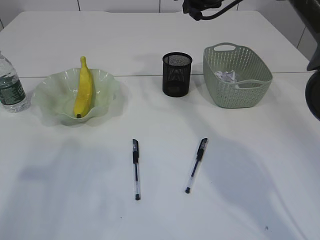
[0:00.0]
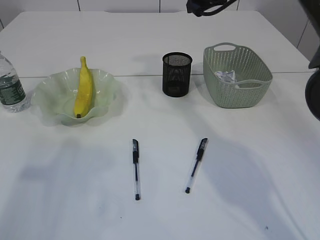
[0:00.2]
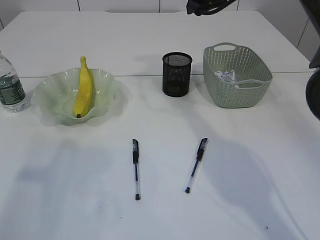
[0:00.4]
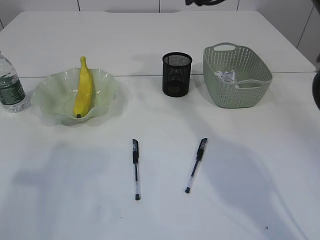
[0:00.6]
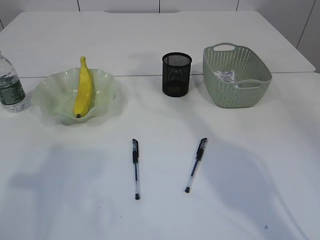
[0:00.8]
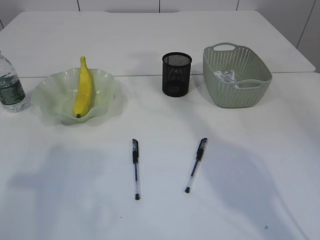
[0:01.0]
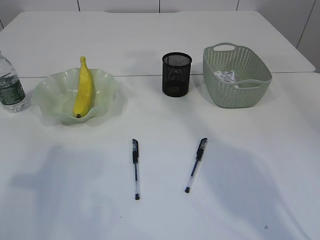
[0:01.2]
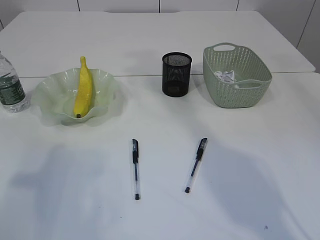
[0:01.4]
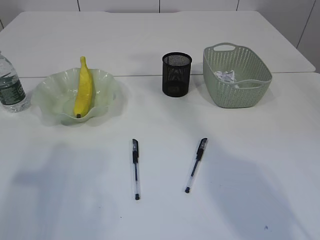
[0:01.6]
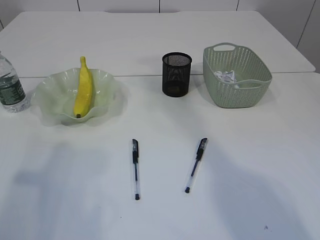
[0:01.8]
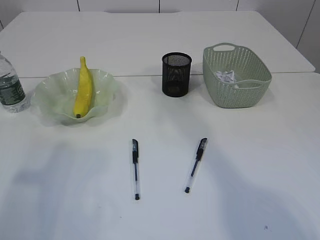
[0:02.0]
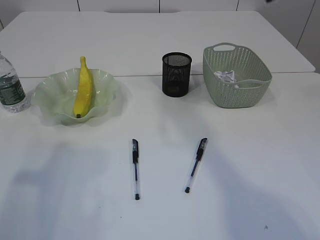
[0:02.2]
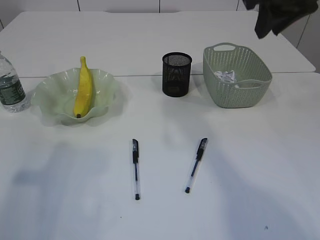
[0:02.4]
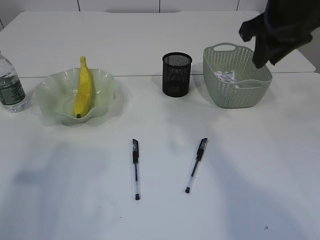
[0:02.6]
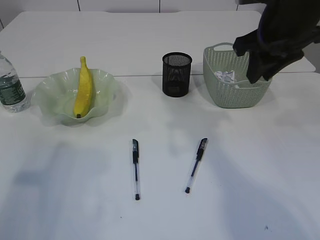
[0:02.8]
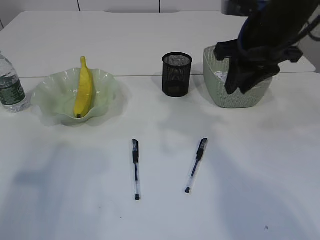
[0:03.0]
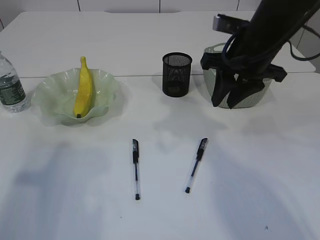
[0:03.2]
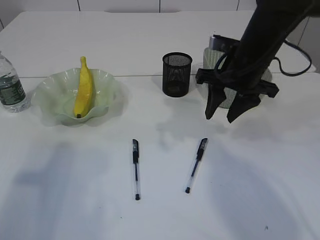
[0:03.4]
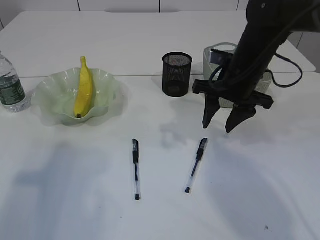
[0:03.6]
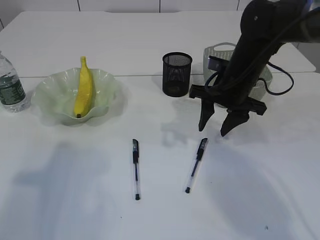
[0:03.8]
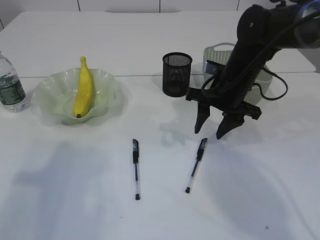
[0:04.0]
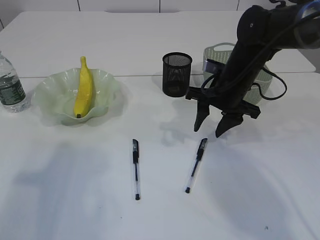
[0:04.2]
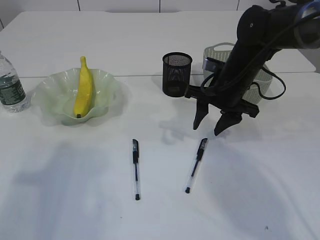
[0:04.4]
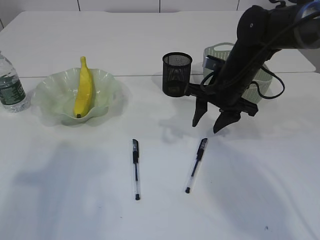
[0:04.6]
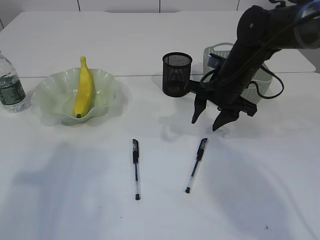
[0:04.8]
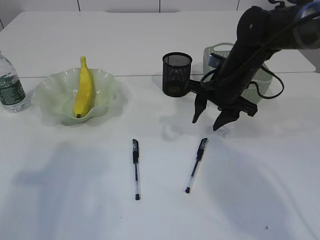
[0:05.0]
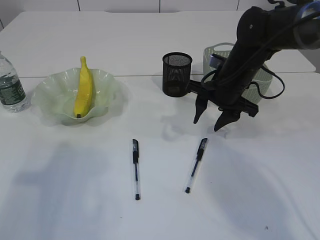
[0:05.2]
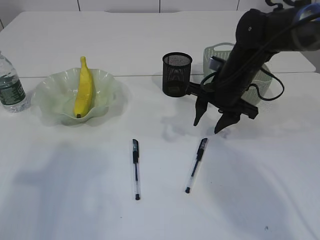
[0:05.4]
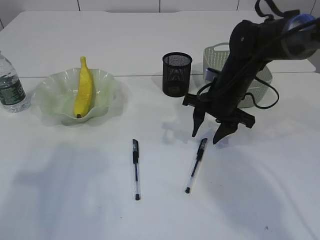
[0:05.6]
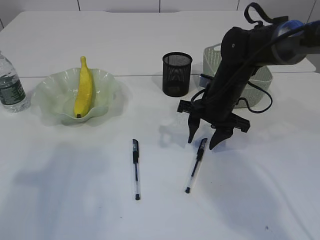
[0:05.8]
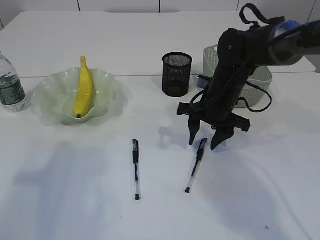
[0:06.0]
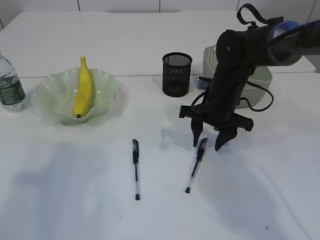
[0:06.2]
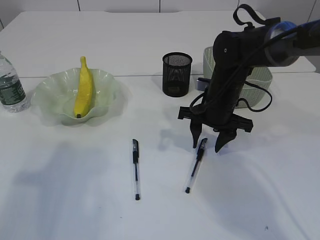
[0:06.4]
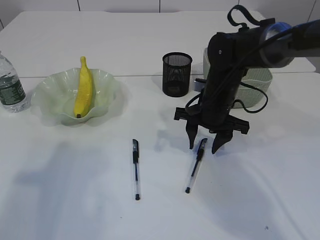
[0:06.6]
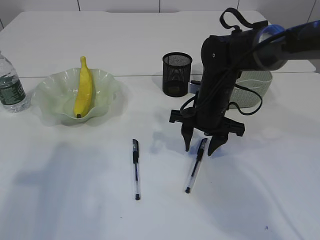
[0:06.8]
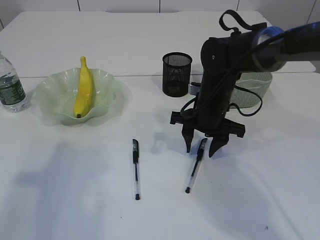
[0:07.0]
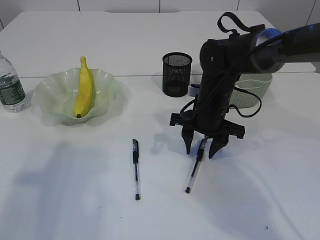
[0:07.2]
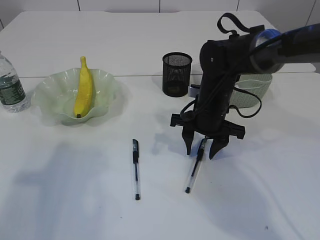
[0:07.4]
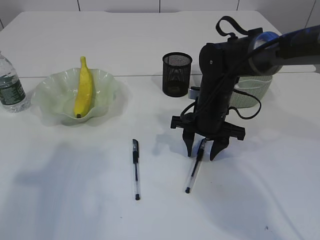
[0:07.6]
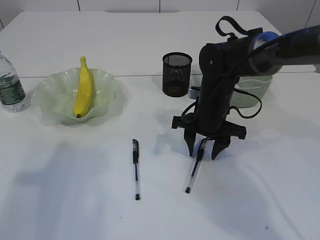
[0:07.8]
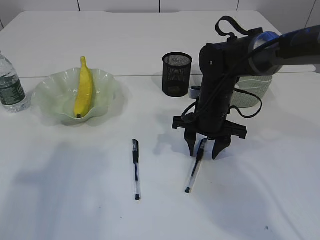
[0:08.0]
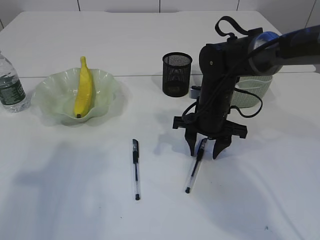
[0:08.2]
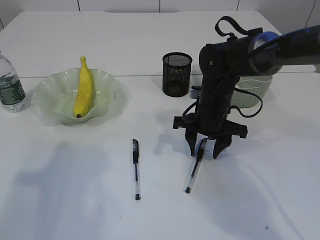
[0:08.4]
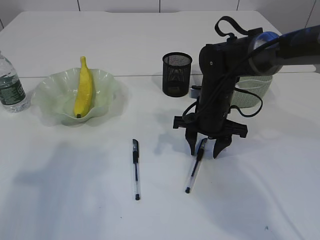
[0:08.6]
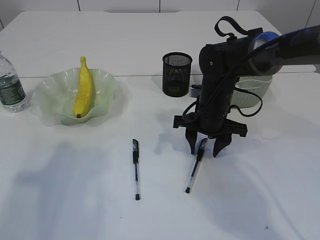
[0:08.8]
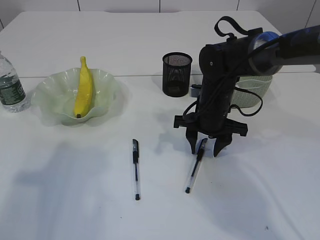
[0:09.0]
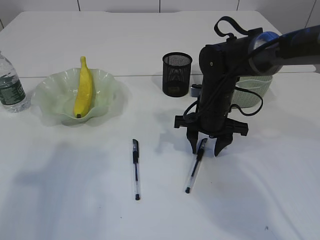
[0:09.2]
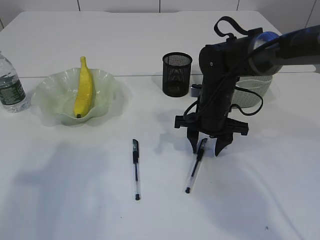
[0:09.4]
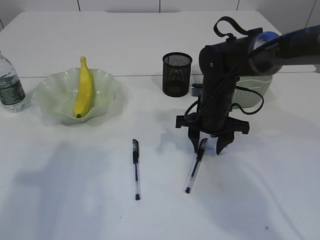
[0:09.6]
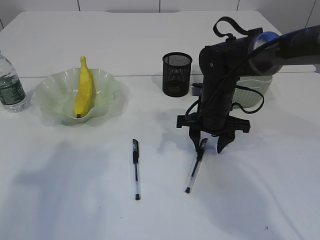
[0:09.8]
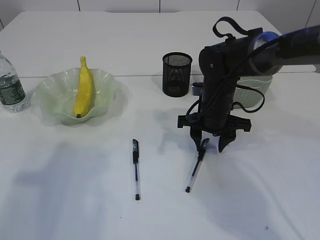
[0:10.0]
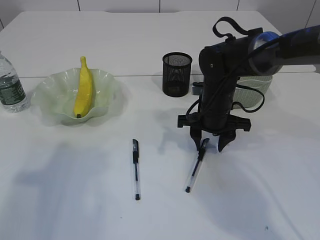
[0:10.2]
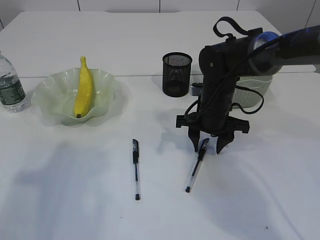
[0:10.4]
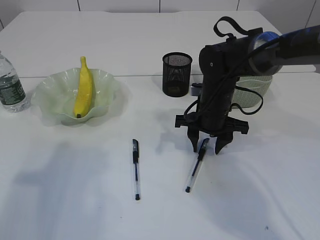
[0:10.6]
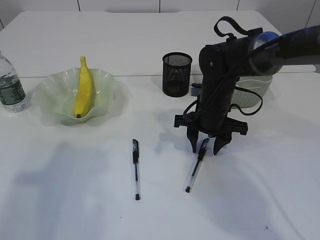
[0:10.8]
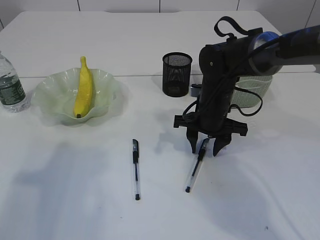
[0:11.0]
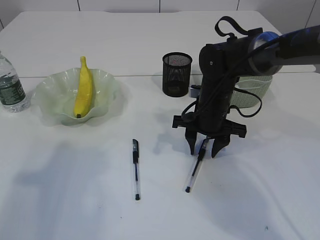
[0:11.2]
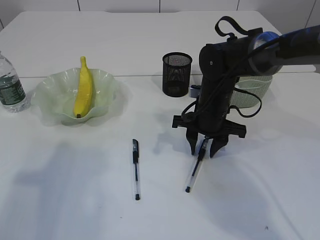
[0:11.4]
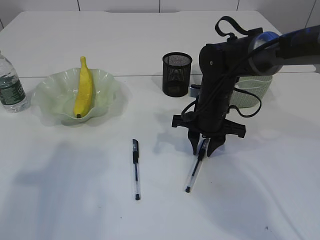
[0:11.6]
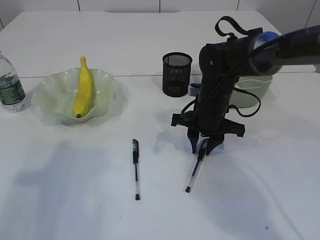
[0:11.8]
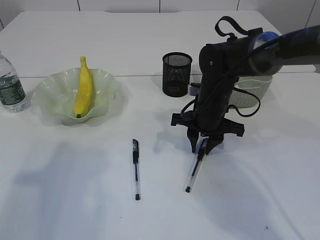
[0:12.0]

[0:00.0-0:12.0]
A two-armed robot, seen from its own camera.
0:00.0 to 0:01.6: The right gripper is displaced upward and backward by about 20 cm.
0:01.6 to 0:03.0: The right gripper goes roughly 15 cm downward.
0:03.0 to 0:04.4: The right gripper moves downward, some 10 cm.
0:04.4 to 0:06.0: The grippers stay close to where they were, moving slightly.
0:06.0 to 0:07.6: The grippers make only small movements.
0:07.6 to 0:09.0: Both grippers stay about where they are.
0:09.0 to 0:12.0: The grippers stay close to where they were, moving slightly.

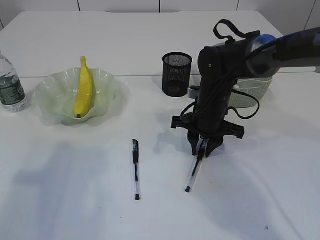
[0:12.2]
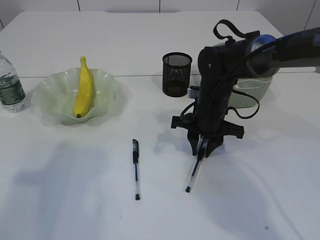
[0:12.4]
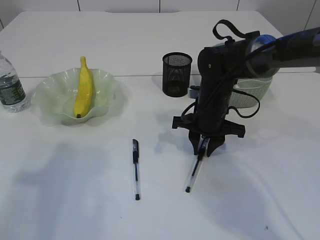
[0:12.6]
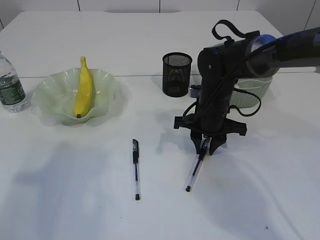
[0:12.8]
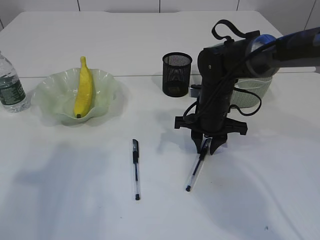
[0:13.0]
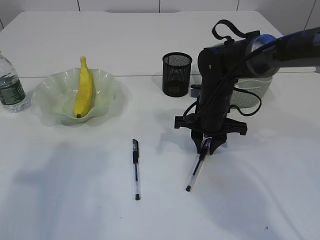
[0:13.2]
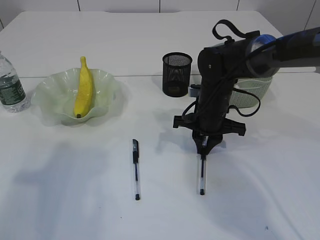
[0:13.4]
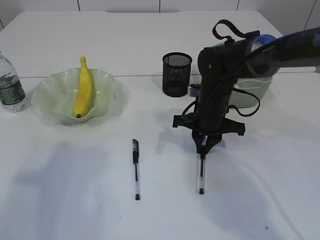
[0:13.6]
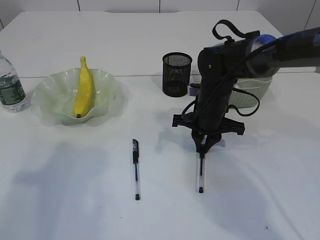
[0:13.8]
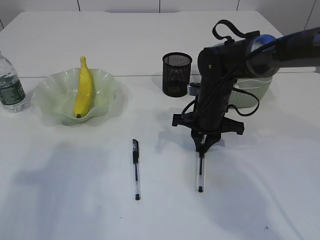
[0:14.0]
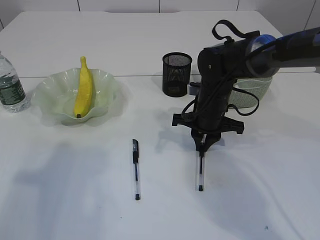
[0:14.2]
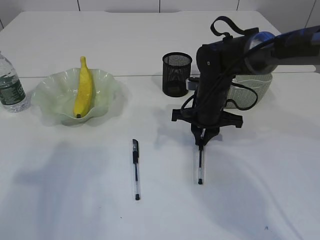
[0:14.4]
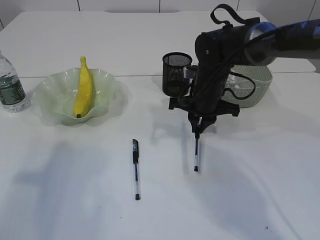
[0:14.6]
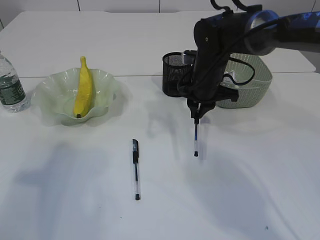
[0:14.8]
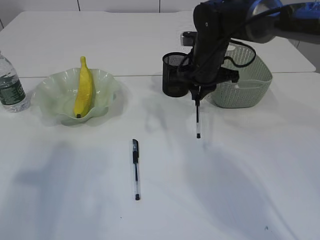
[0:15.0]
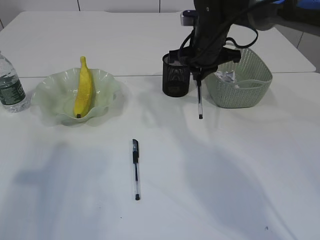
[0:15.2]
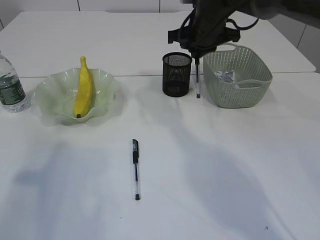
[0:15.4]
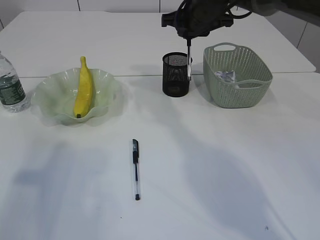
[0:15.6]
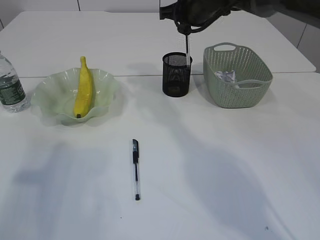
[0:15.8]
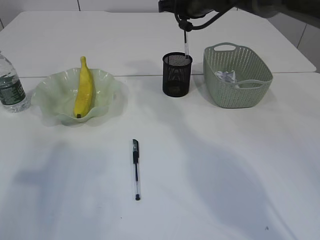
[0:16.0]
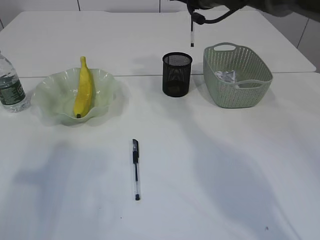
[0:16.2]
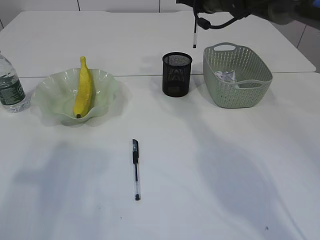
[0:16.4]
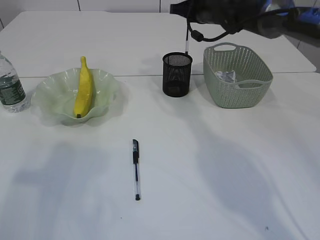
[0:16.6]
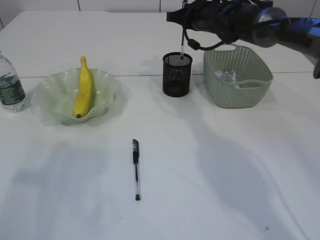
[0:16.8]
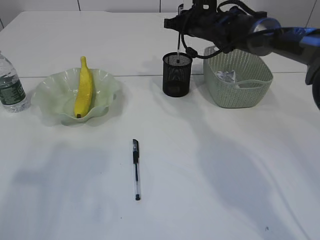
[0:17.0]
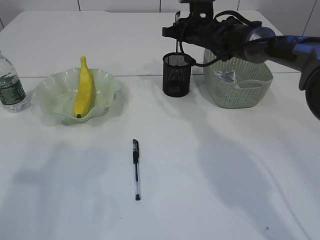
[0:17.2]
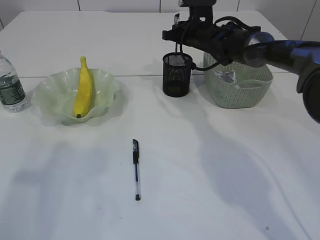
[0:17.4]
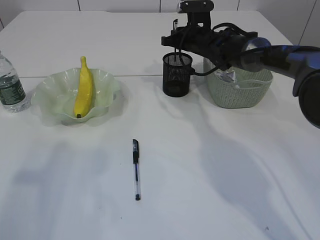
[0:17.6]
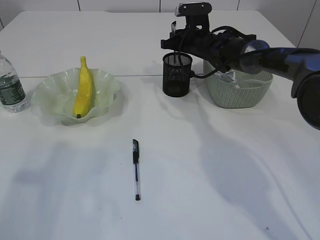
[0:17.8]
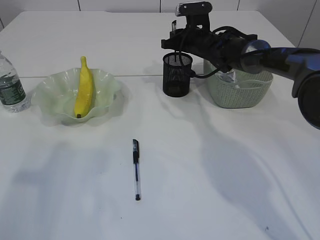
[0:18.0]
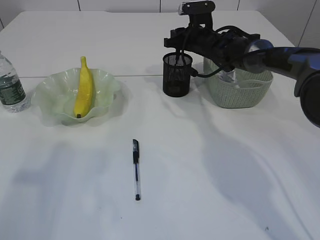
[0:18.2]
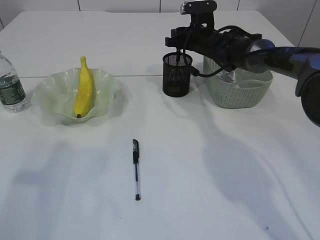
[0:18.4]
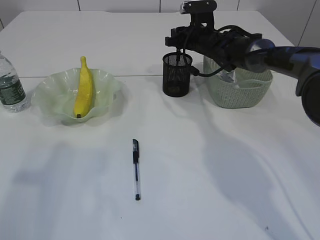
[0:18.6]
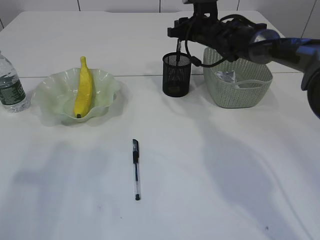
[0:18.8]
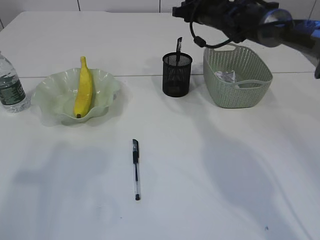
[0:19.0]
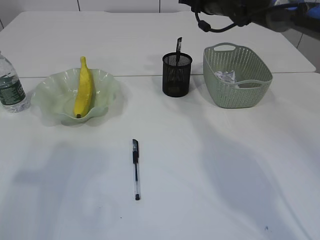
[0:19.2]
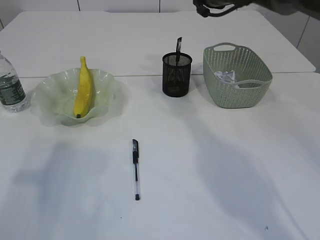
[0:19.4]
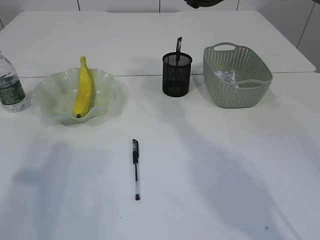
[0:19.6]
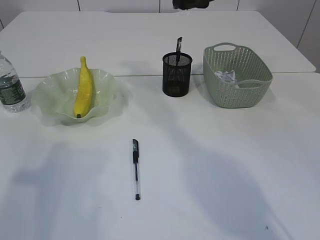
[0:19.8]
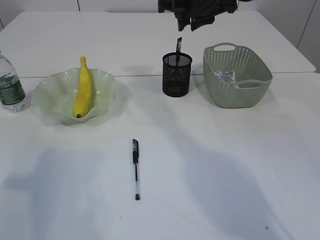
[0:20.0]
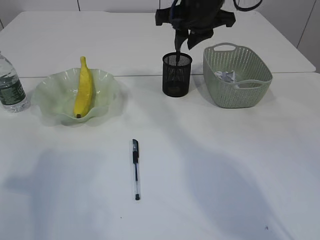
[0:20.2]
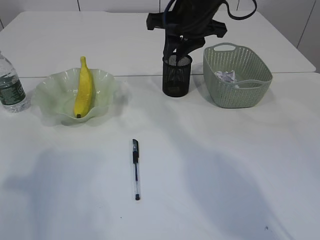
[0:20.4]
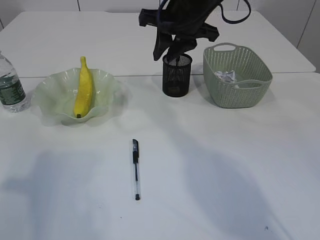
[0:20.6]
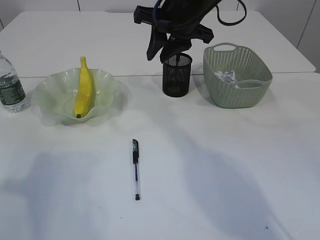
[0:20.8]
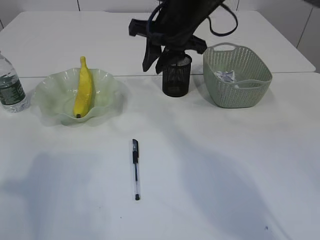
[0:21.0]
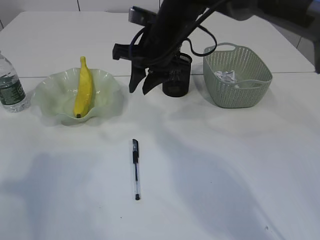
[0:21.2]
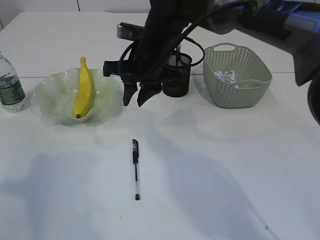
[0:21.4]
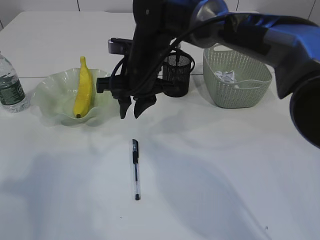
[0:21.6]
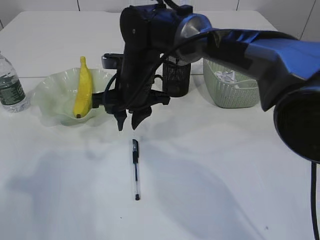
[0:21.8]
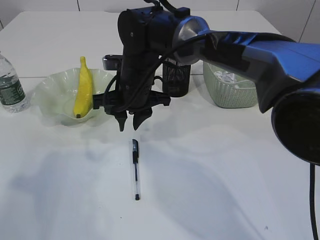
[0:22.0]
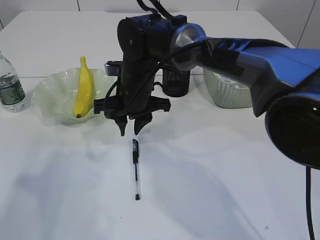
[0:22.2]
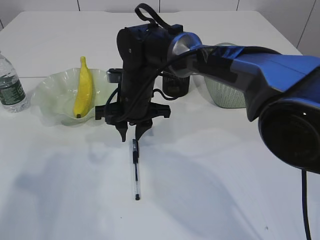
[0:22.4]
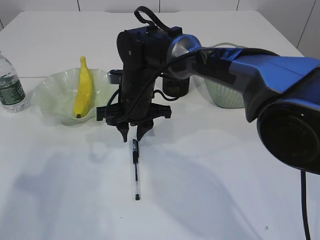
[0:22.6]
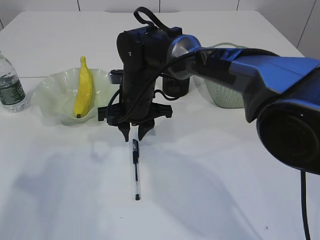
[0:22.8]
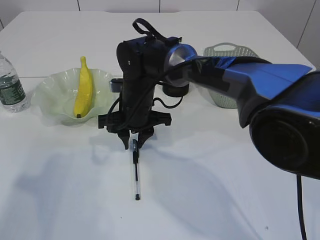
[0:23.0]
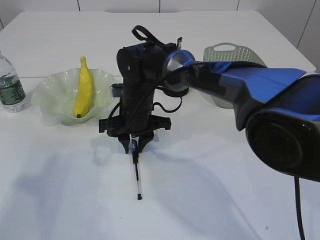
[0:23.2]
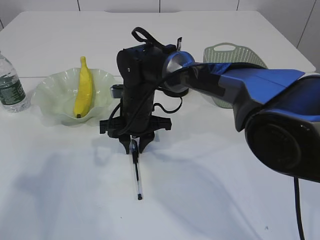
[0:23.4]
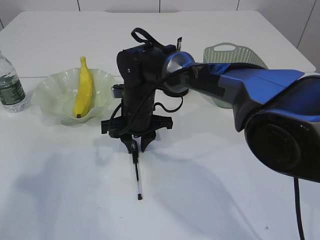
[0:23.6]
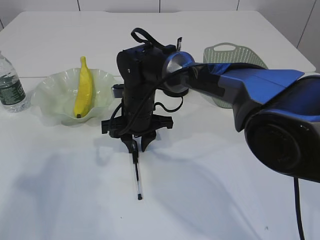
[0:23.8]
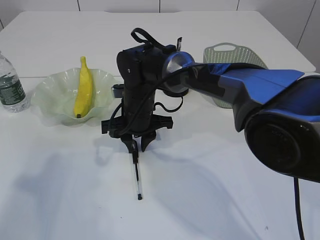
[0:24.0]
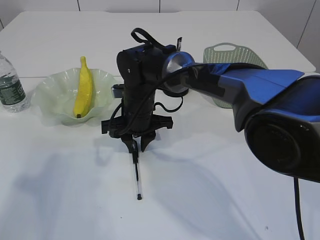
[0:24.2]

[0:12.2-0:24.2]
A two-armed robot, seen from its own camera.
Step, 0:12.2 to 0:14.6: Pick up the pen with right arm.
Step, 0:14.8 to 0:18.4: Place the pen into the pen holder.
0:12.2 to 0:13.8: Both grippers stay about where they are.
0:13.8 to 0:15.2: The right gripper travels upward and forward by roughly 10 cm.
0:15.2 to 0:16.6: The right gripper is displaced forward by about 10 cm.
0:16.6 to 0:18.2: The right gripper moves downward, roughly 10 cm.
0:18.2 to 0:19.8: The right gripper travels upward and backward by some 20 cm.
0:19.8 to 0:21.2: The right gripper shifts about 10 cm to the left, downward and backward.
0:21.2 to 0:22.6: The right gripper is displaced downward and to the left by roughly 10 cm.
0:22.6 to 0:24.2: The grippers stay close to where they were, moving slightly.
